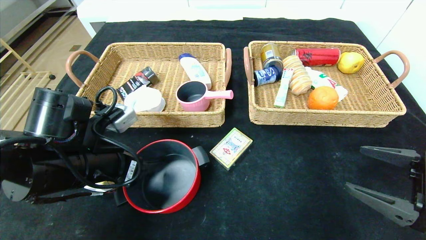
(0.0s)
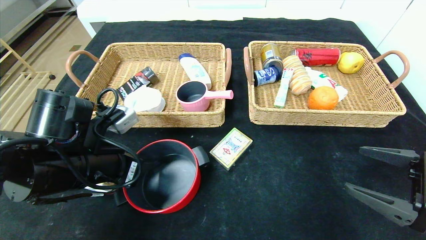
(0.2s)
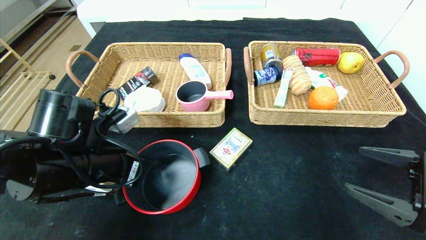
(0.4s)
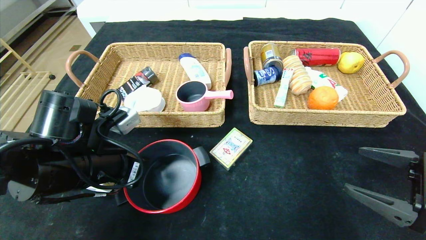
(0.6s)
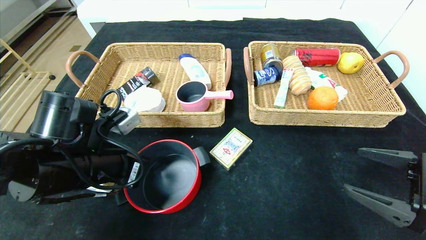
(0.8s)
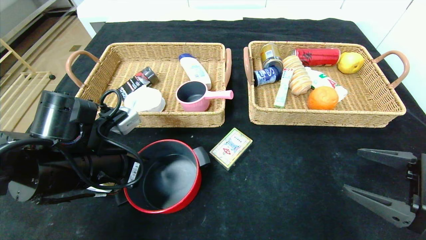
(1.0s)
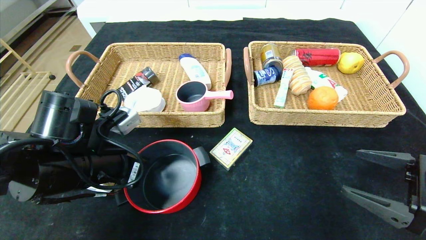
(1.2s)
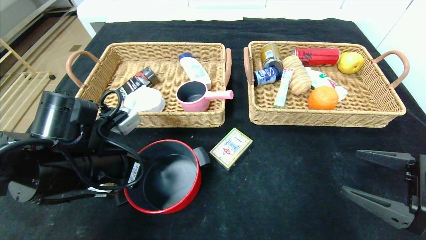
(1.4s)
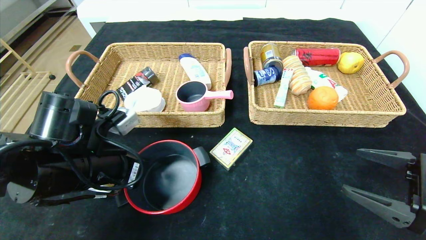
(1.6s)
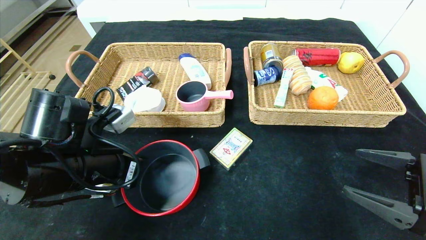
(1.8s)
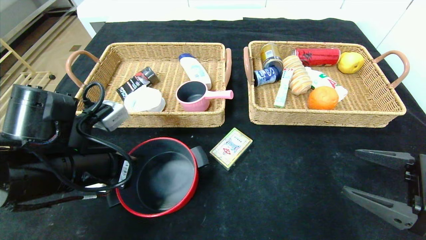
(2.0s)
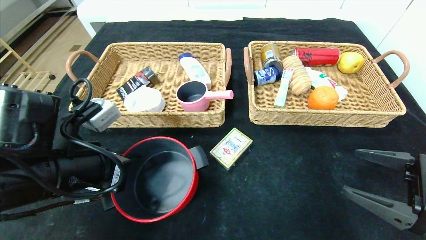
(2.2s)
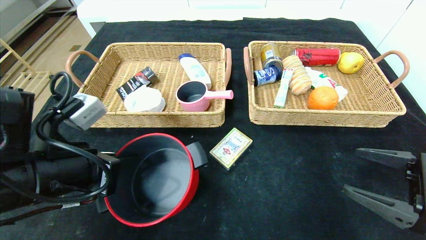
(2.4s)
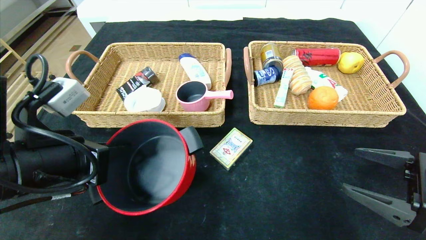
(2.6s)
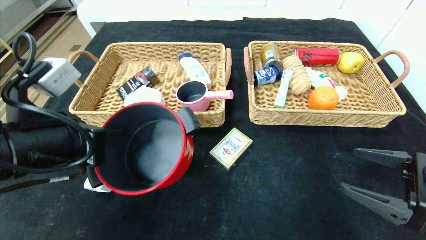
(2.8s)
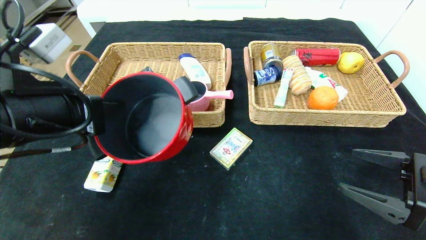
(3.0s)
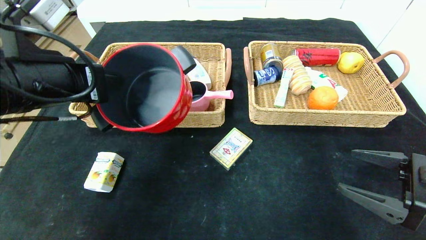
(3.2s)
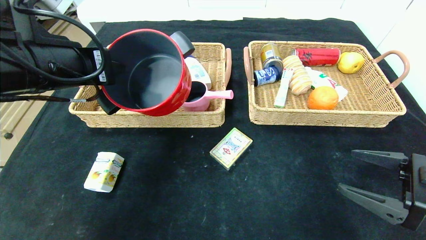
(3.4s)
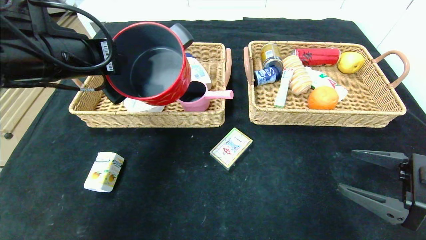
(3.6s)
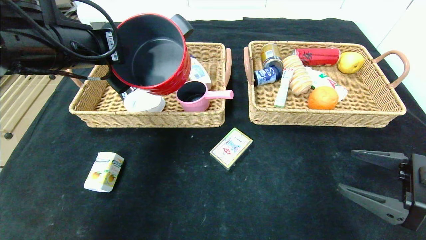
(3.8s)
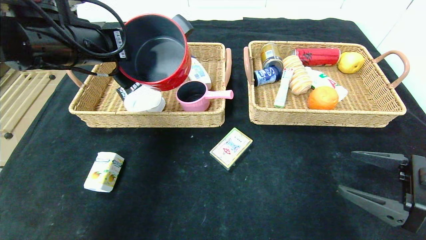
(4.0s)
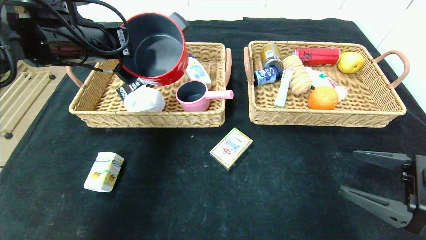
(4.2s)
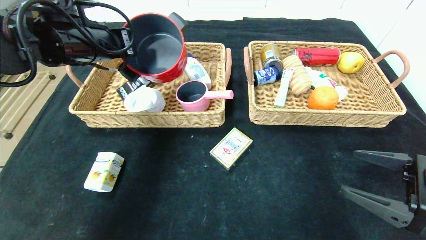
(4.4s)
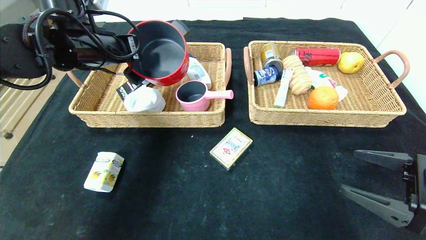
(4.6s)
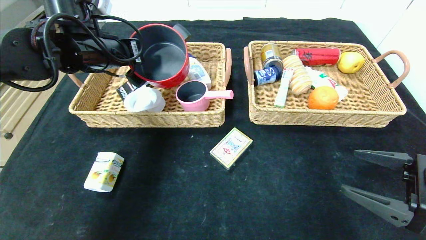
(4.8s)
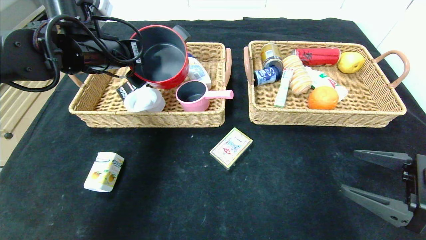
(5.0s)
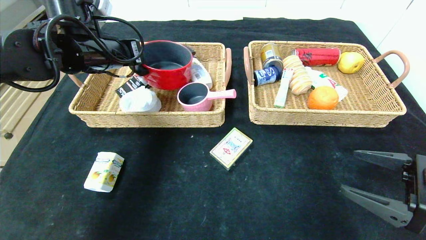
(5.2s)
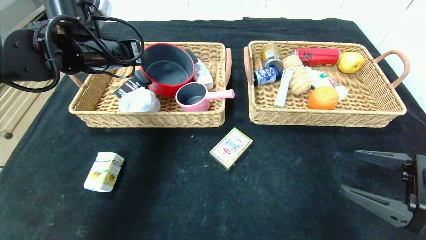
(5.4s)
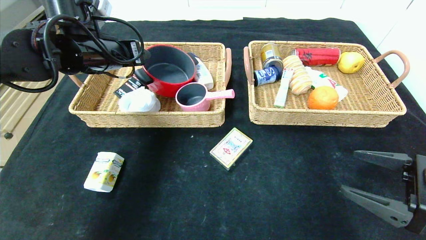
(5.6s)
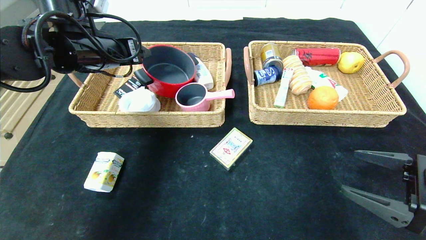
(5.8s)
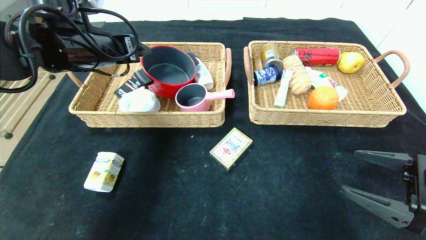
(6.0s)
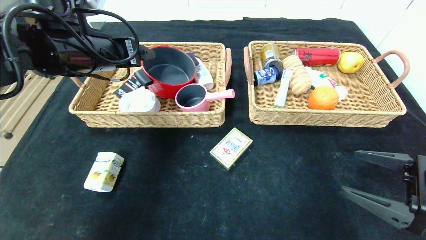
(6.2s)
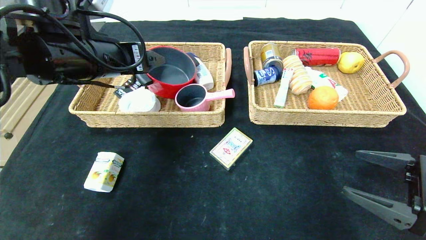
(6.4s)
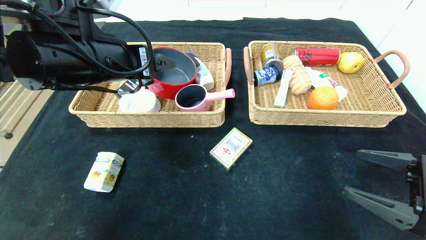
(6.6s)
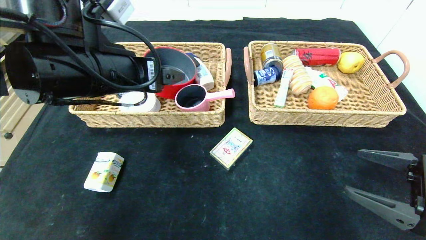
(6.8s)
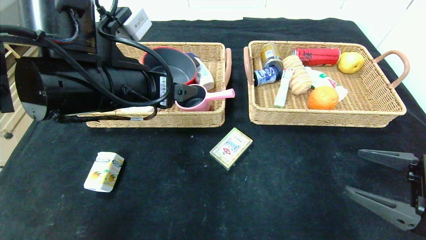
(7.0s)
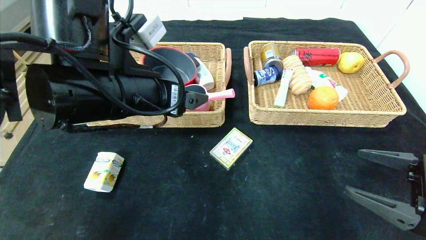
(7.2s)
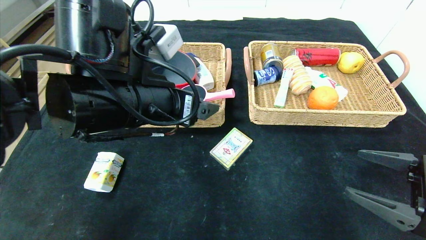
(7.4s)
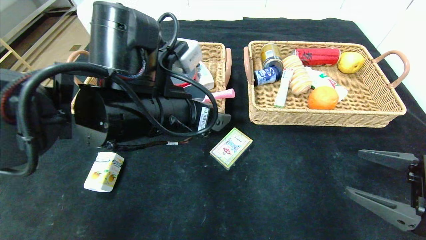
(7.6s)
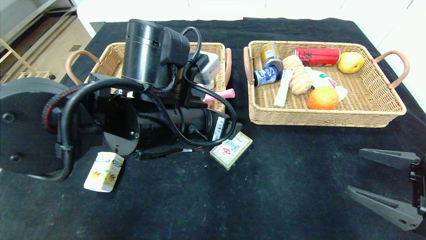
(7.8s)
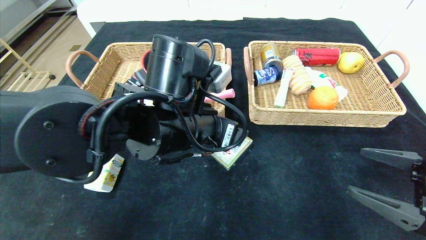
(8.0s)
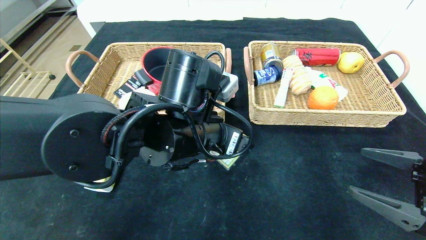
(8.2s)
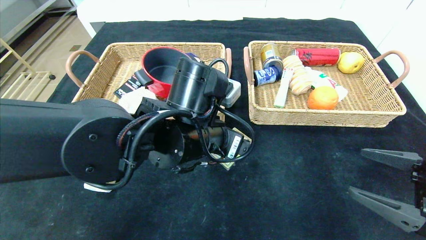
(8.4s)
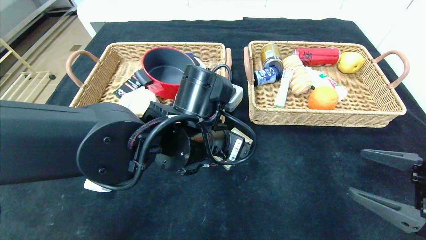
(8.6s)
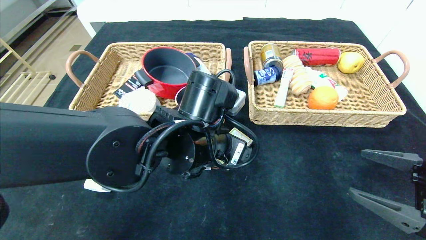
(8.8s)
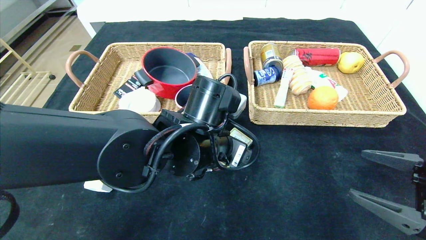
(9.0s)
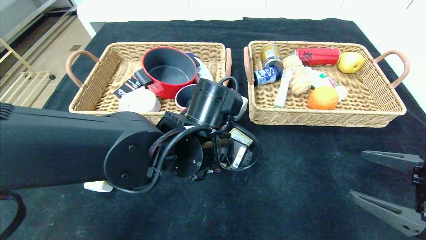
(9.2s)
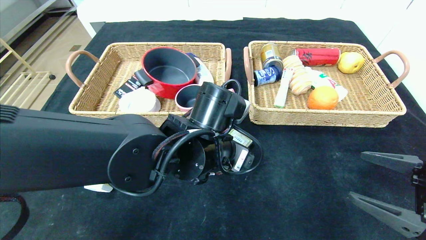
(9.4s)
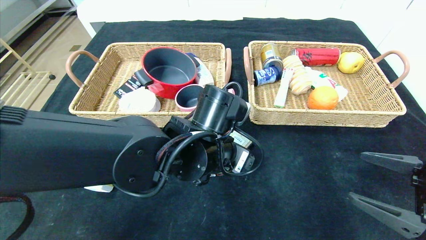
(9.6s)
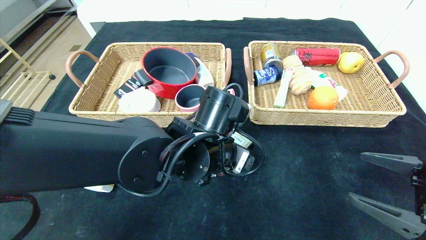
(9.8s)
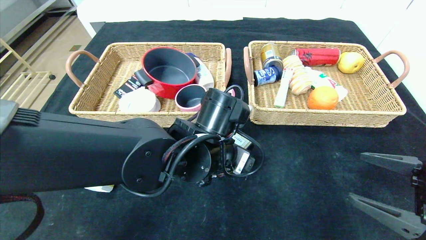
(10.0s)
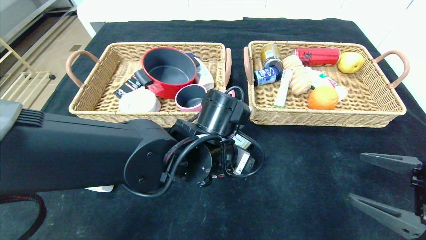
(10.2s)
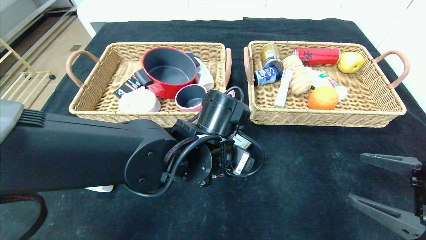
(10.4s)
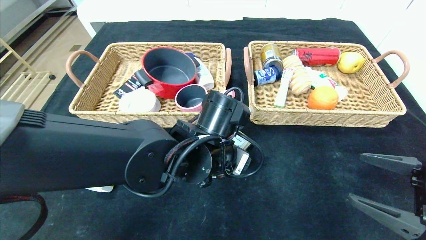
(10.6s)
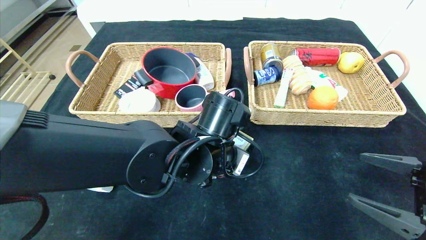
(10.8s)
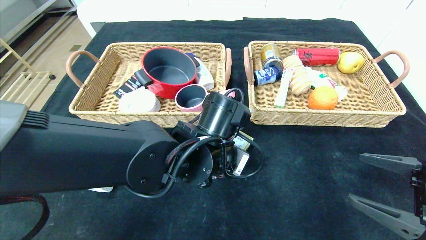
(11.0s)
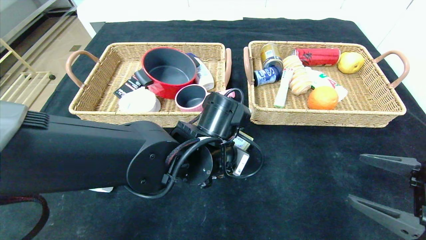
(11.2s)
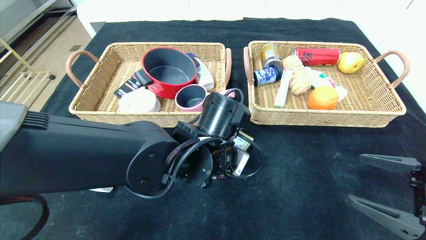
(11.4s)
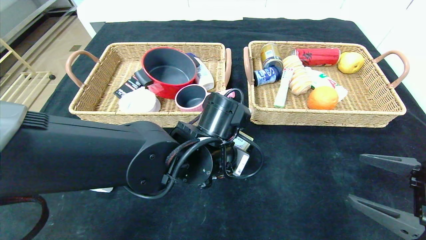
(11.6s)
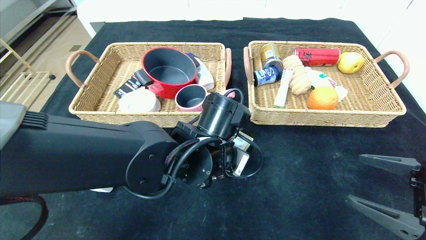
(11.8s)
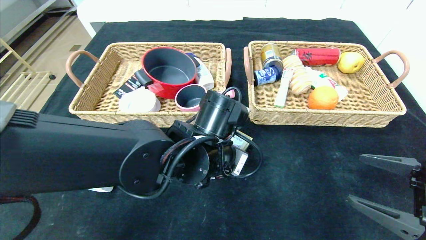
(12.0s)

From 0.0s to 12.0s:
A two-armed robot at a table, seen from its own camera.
From 0.0s to 1.6s: The left gripper closes its fingers.
From 1.6s to 3.0s: The left gripper shifts some 10 cm upward.
From 3.0s to 4.4s: The left gripper travels forward by roughly 15 cm.
From 4.4s to 6.0s: The left gripper opens.
From 6.0s to 7.6s: The left gripper travels to the right, backward and downward by roughly 20 cm.
From 7.6s to 9.0s: The left gripper is displaced downward and to the right by roughly 10 cm.
From 9.0s to 10.4s: The grippers move only a little.
From 10.4s to 12.0s: The left gripper closes.

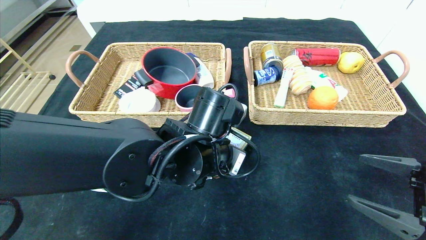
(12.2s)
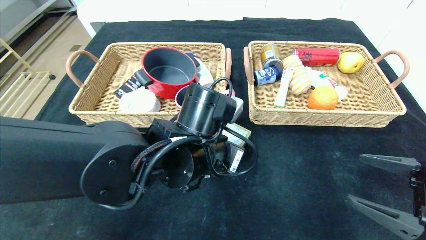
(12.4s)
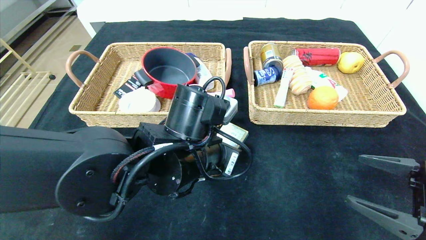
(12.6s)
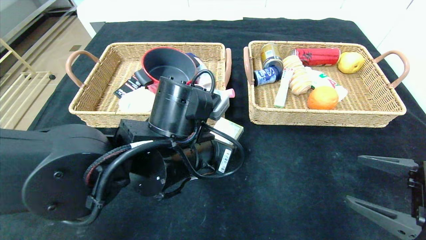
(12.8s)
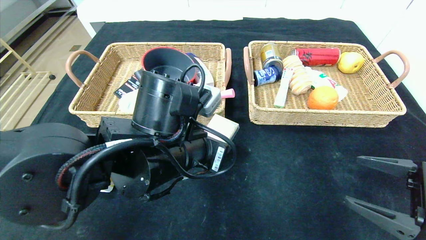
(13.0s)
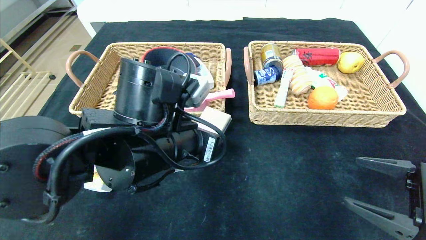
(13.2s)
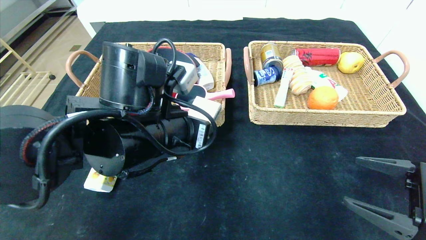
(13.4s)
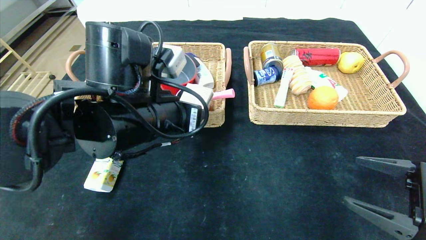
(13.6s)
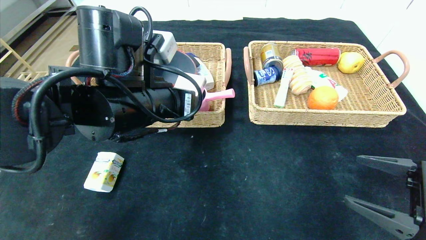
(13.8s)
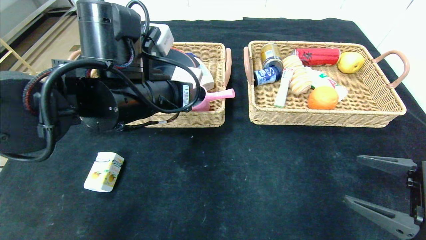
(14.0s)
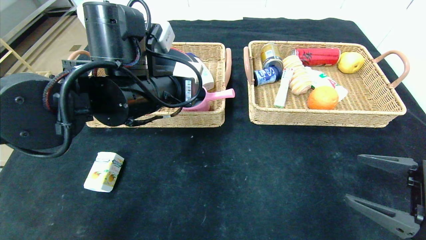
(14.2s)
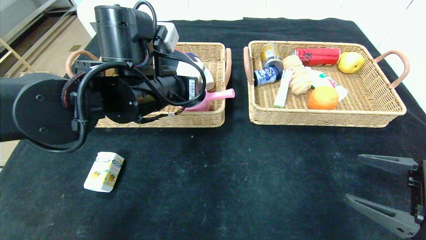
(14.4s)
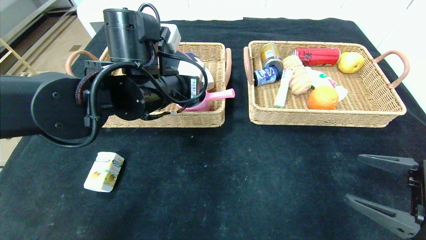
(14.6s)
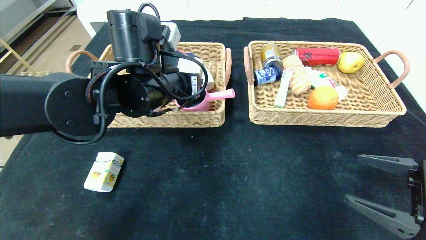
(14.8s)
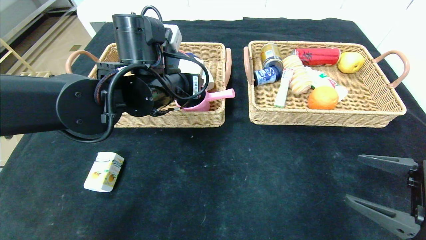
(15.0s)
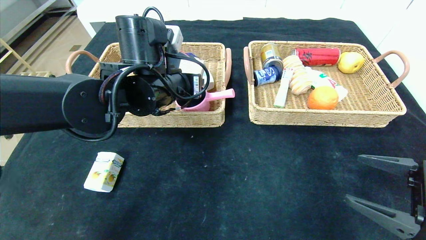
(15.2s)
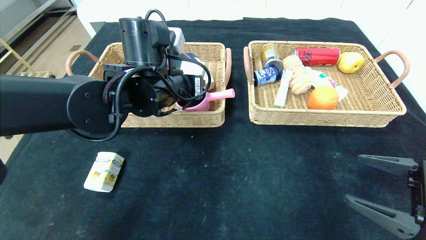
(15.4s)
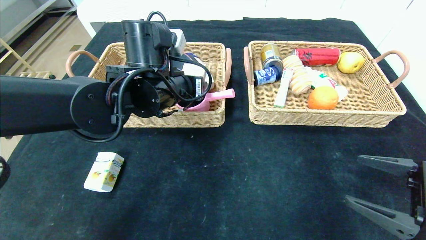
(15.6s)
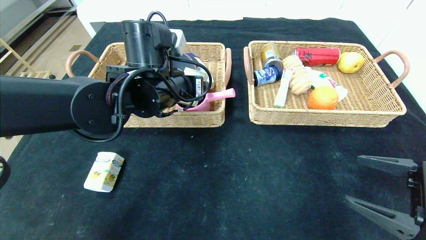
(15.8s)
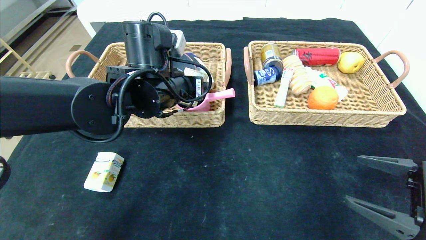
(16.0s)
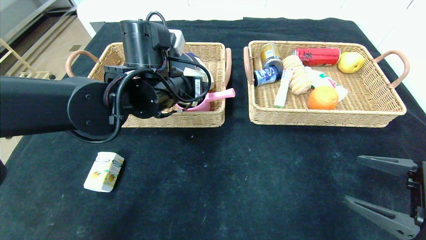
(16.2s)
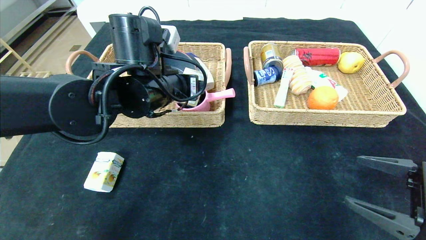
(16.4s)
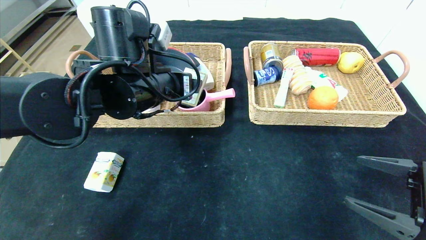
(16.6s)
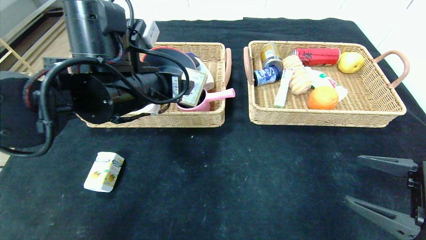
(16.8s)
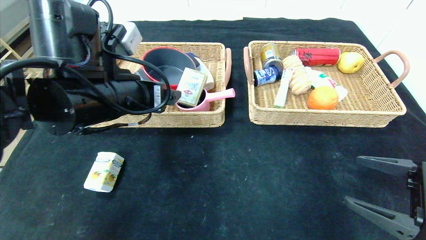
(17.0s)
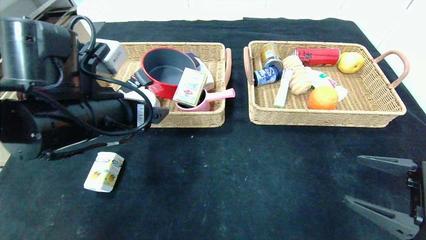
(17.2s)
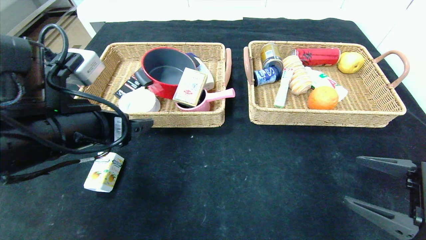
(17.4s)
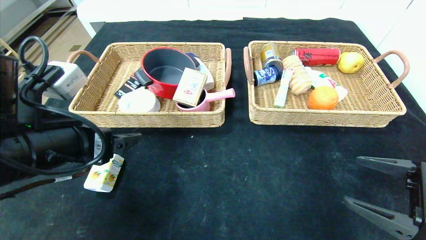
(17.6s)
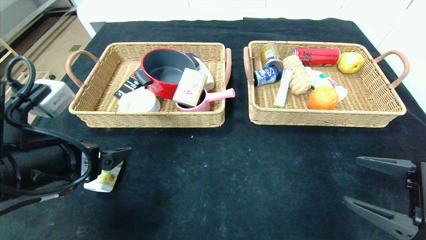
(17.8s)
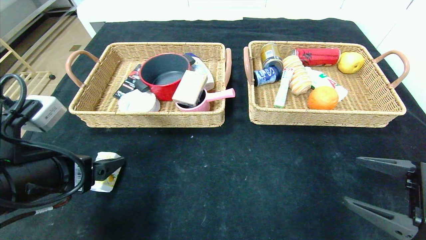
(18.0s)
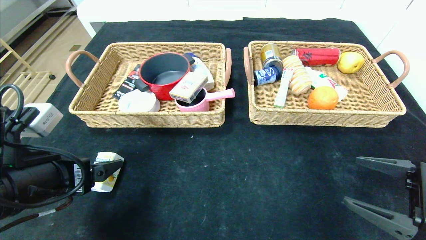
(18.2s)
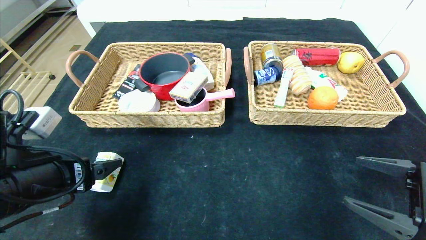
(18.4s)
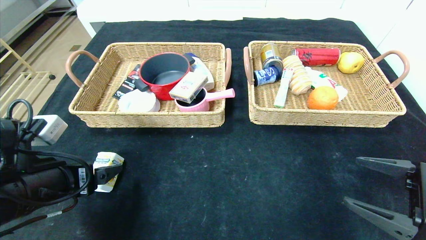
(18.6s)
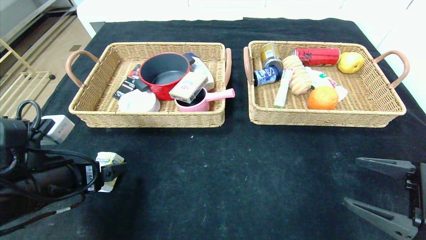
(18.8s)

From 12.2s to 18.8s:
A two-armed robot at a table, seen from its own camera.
Step, from 12.2s to 16.0s: Grasp the playing cards and put it in the left basket.
From 12.2s to 13.8s: The left gripper travels to the left and upward by approximately 10 cm.
From 13.8s to 15.4s: The left gripper goes approximately 5 cm forward.
From 15.4s to 17.2s: The left gripper shifts roughly 15 cm backward and to the left, and opens.
From 17.2s to 18.8s: The left gripper shifts some 10 cm downward and to the left.
